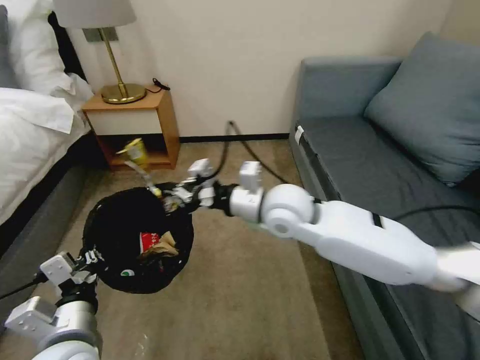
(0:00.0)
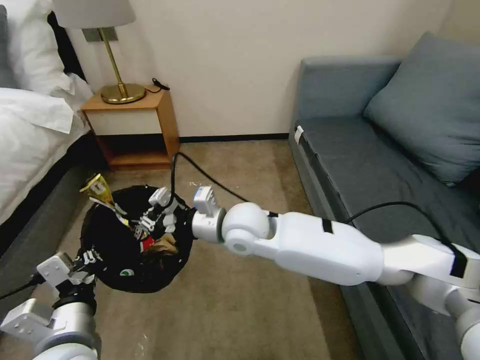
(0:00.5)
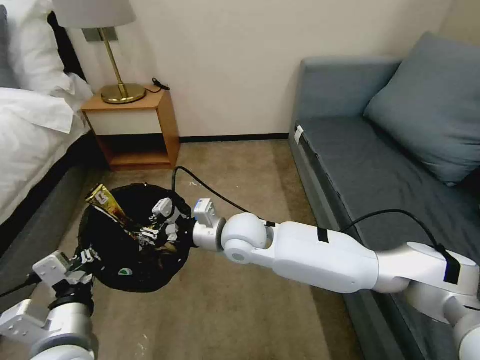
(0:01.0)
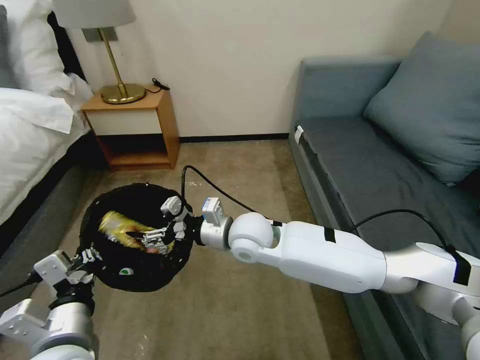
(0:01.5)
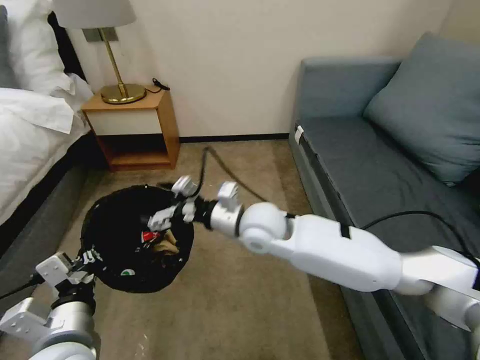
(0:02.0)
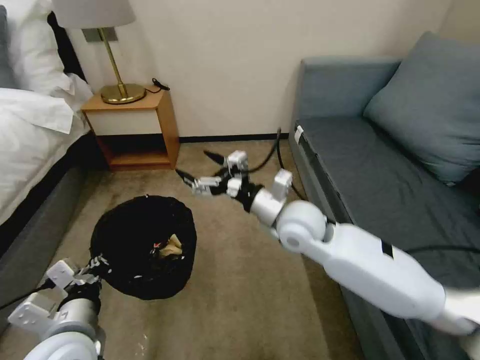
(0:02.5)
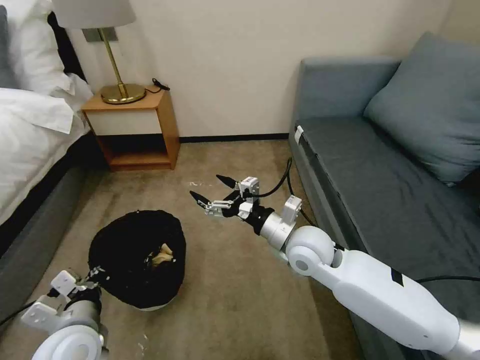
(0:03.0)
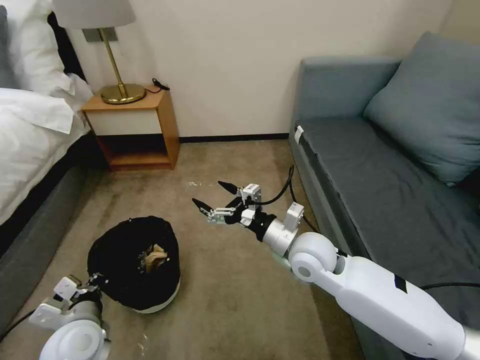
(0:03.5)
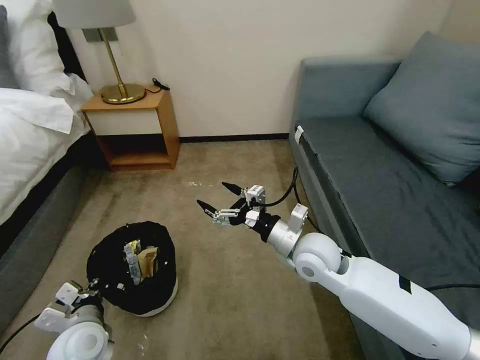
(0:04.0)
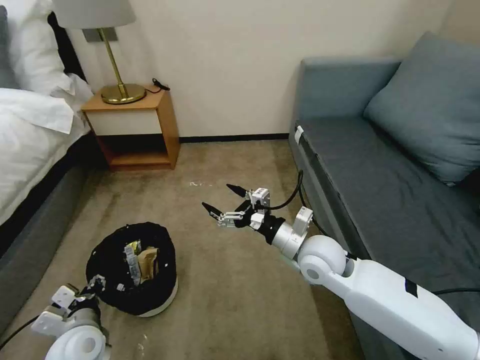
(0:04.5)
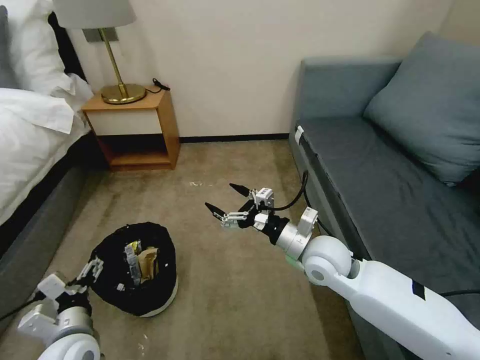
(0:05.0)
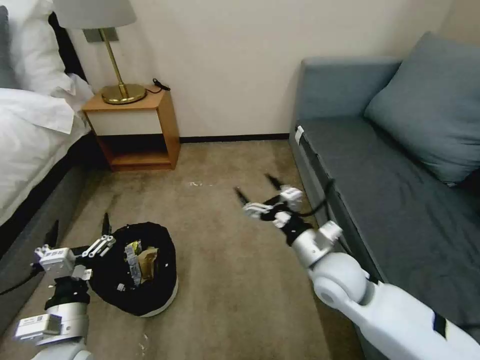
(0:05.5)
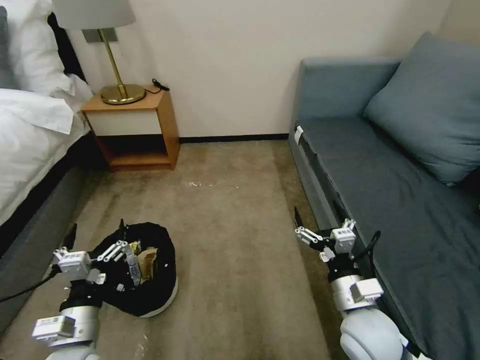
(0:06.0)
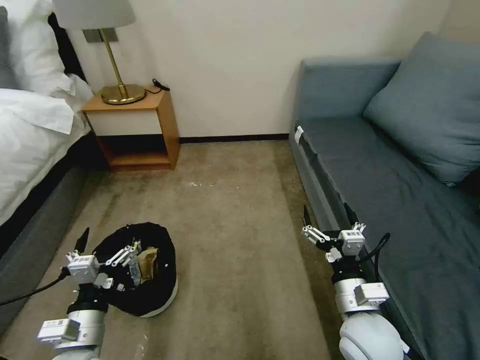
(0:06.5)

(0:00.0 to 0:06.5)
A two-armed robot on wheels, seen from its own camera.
Task of the whole recording: Pick up the trash bin, then pick up the garbage on the floor and place it into the trash bin.
0:00.0 - 0:02.0: The right gripper travels downward by roughly 5 cm, and opens.
0:02.0 - 0:04.5: The right gripper shifts about 15 cm to the right and downward; the left gripper travels downward and to the left by roughly 15 cm, and opens up.
0:04.5 - 0:06.5: The right gripper travels backward and to the right by roughly 15 cm. The left gripper changes place by some 5 cm, and opens.

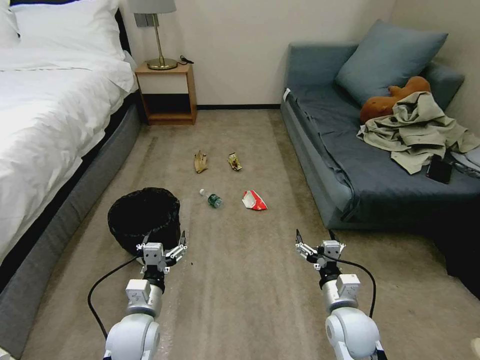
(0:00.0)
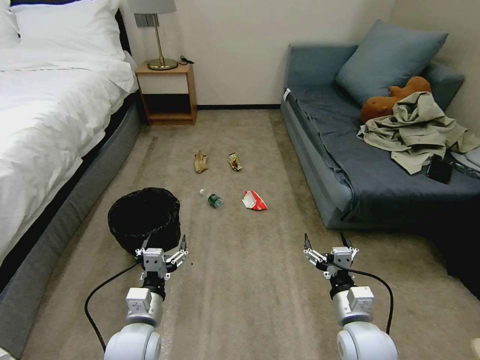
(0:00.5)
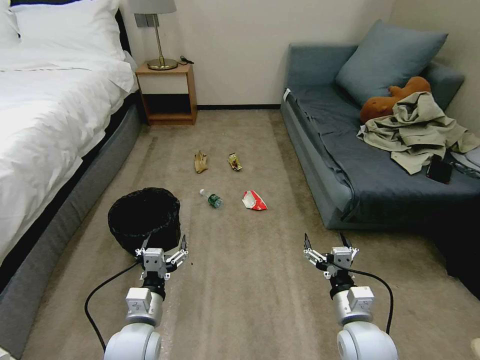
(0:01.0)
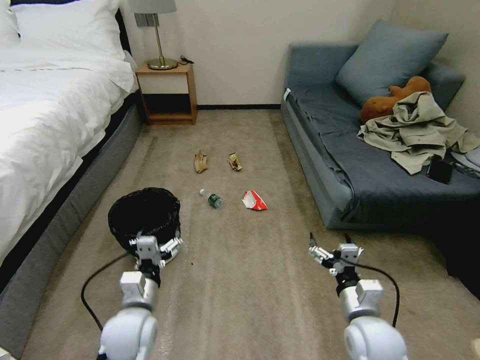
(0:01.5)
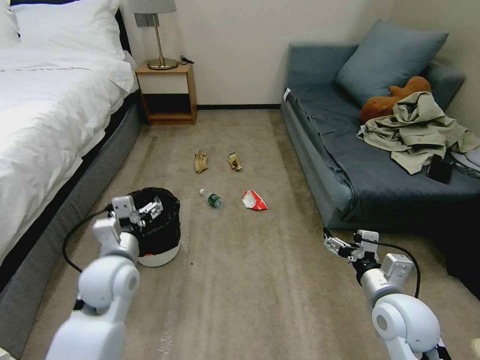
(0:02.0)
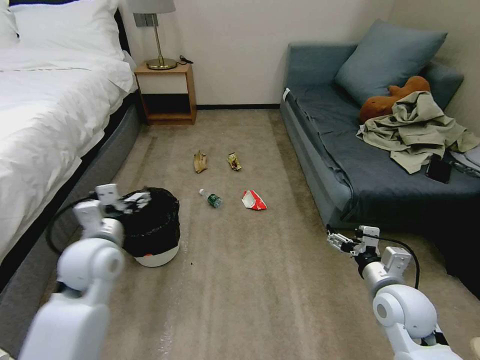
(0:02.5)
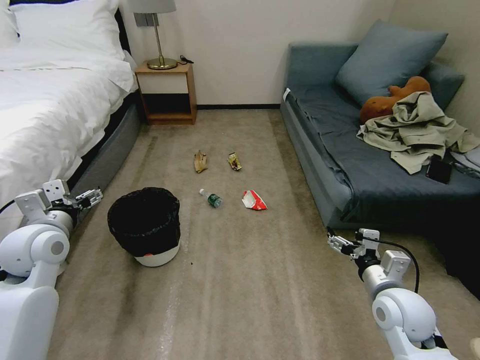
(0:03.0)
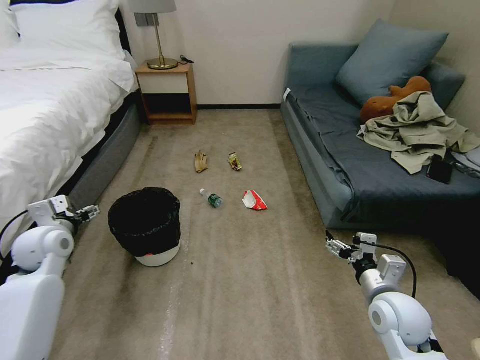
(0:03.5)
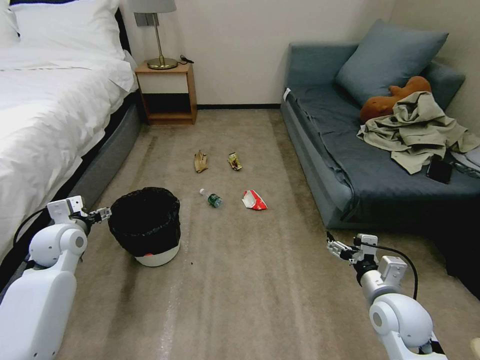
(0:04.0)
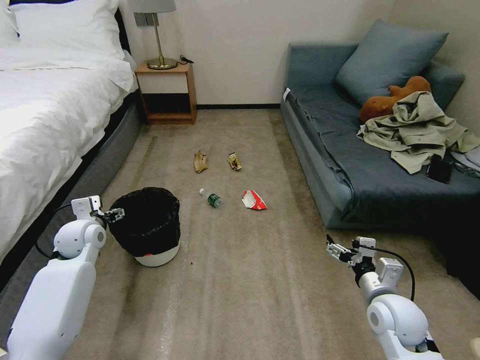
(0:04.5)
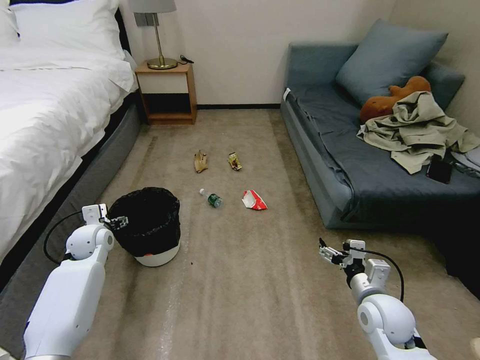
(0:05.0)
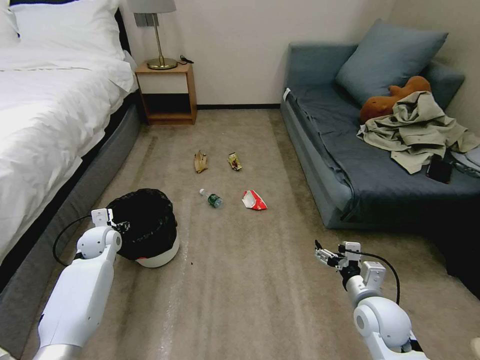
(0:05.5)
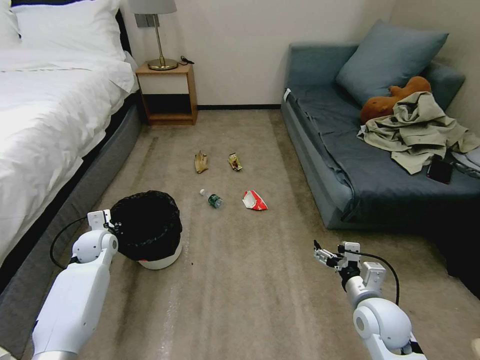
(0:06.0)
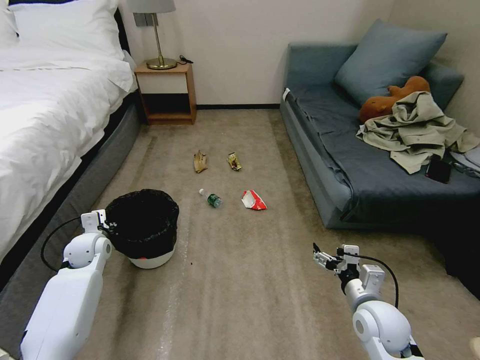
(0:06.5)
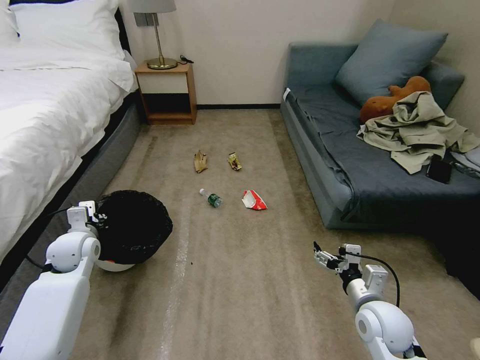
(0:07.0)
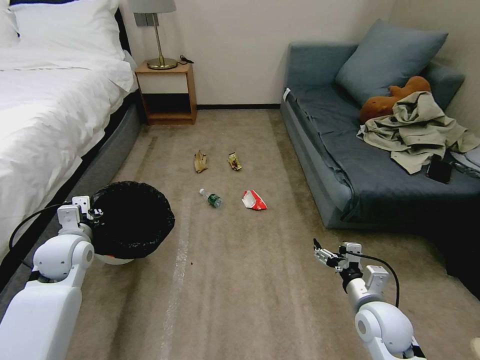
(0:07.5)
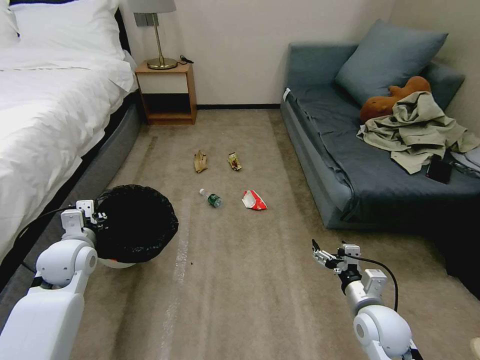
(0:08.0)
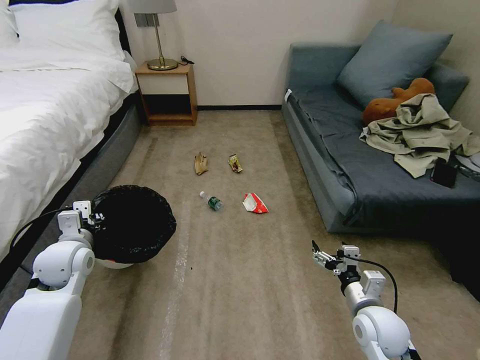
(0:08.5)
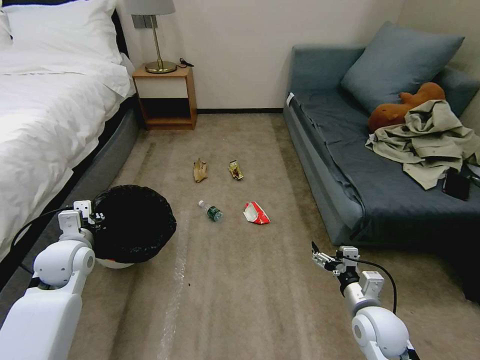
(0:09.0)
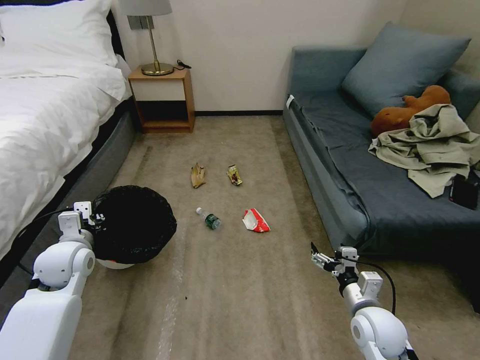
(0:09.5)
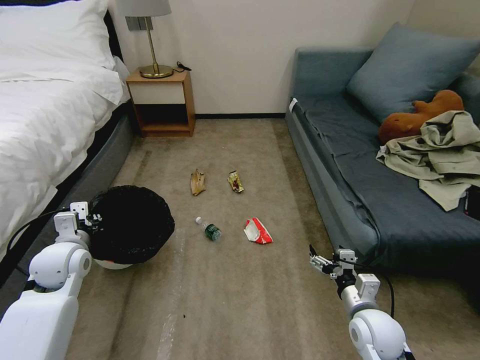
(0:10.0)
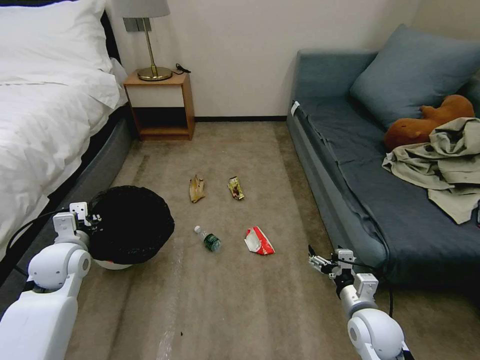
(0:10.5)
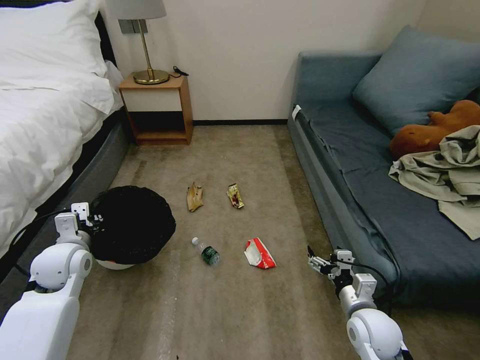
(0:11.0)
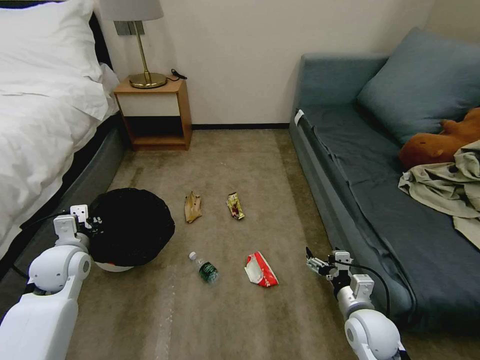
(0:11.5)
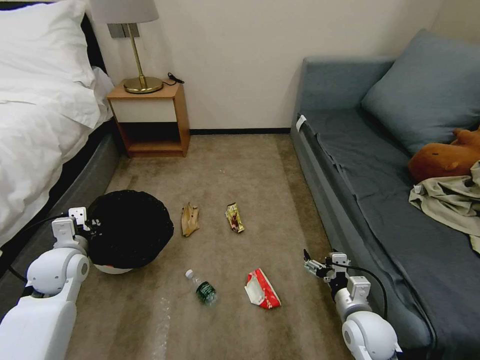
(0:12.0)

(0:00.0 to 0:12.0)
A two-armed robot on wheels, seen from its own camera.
Task of the whole recording: Pick up the trash bin, then pick up the garbage on the floor and place it into the trash bin.
0:02.0 - 0:04.0: The left gripper shifts roughly 15 cm to the left and forward.
0:04.0 - 0:06.0: The left gripper goes about 10 cm downward and forward, and closes its fingers.
0:06.0 - 0:08.0: The left gripper travels upward and backward by roughly 15 cm.

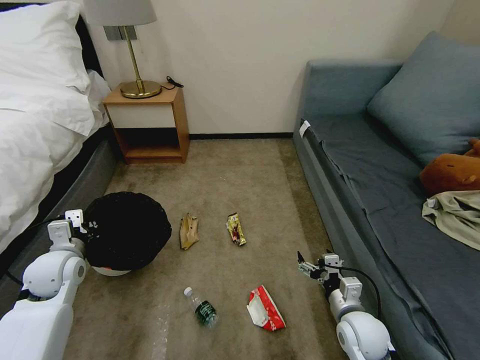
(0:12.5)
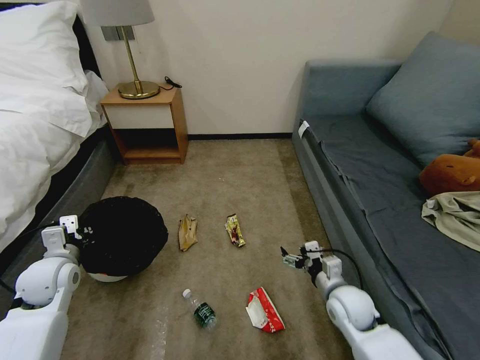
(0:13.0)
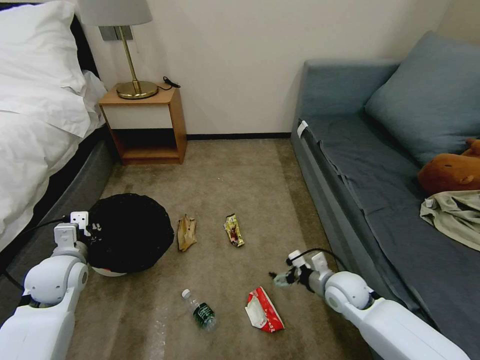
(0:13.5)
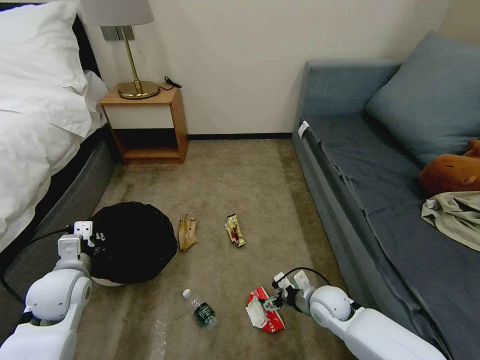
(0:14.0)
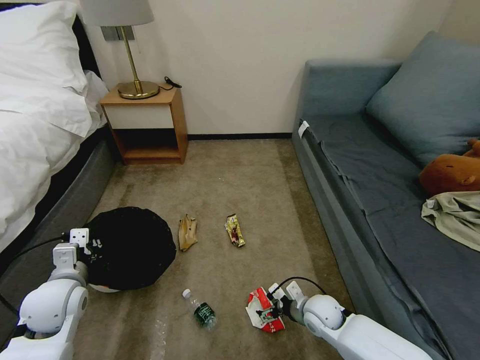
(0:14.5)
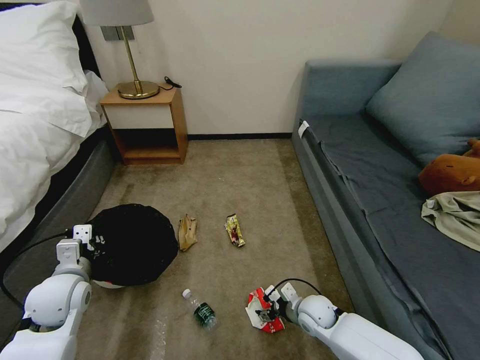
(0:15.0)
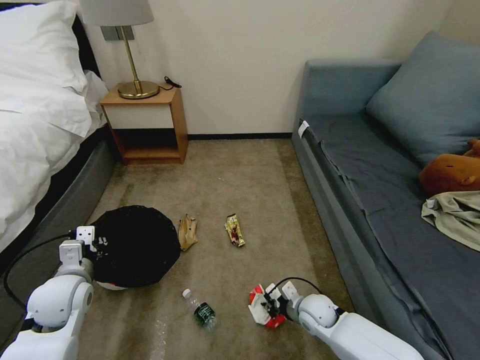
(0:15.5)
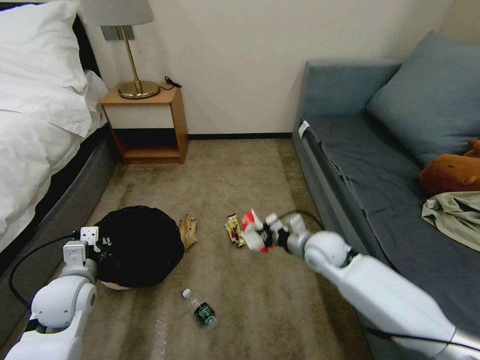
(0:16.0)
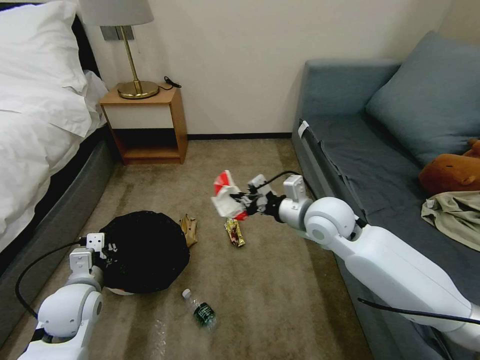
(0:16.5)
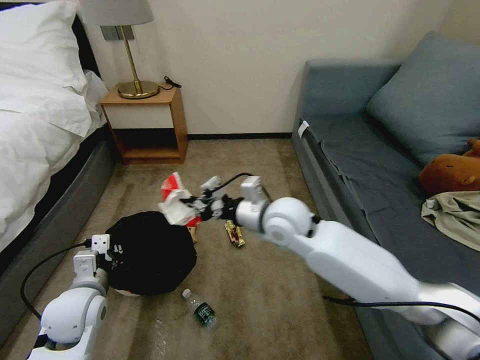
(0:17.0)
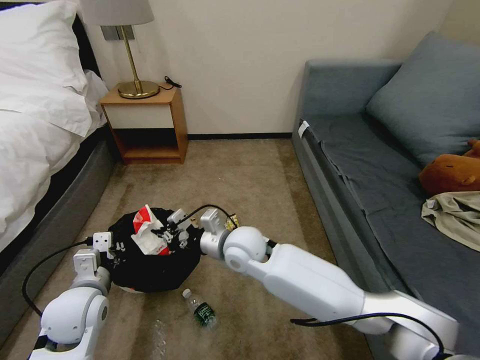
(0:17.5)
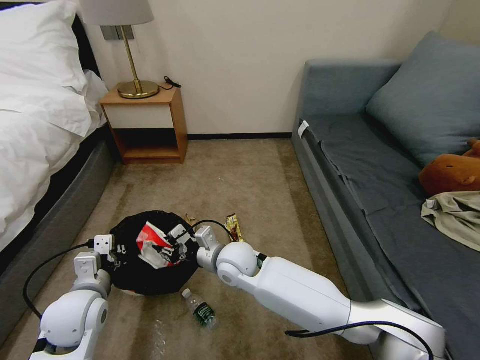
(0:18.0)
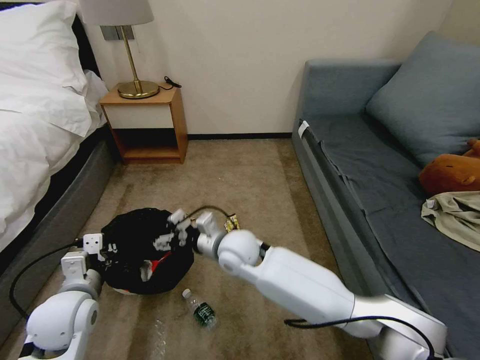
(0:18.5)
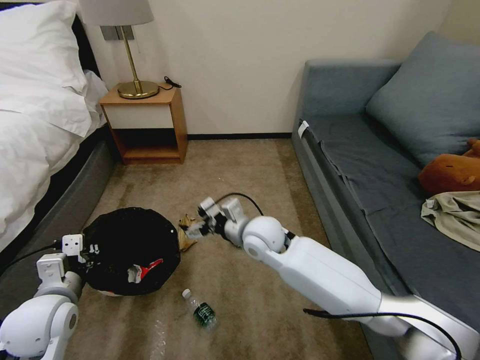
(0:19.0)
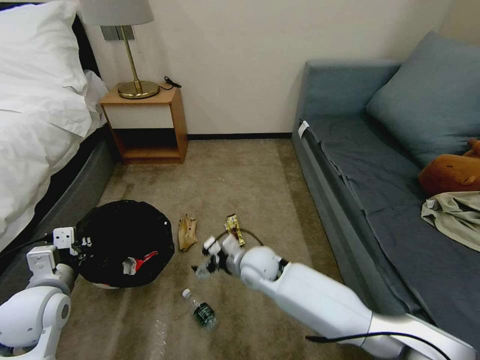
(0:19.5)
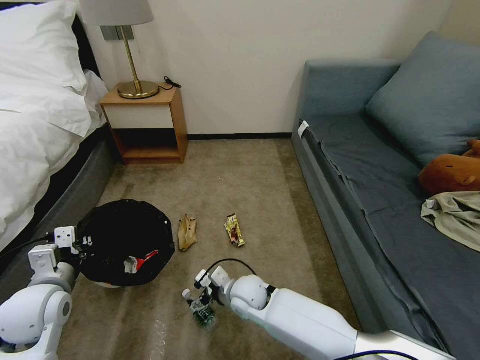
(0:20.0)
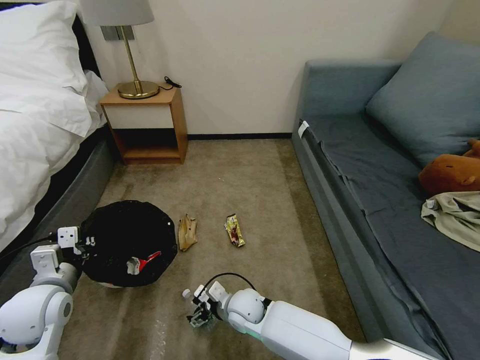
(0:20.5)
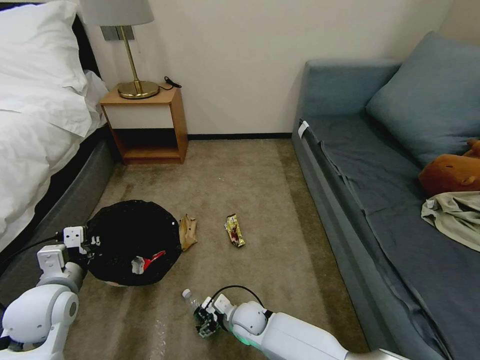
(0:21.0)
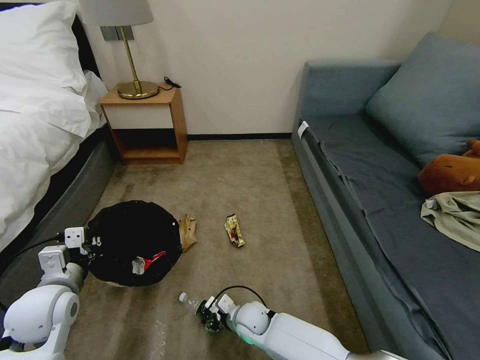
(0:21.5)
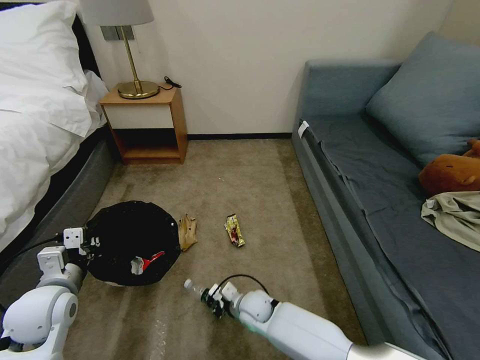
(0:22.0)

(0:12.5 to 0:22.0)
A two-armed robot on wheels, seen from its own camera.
Task of the whole recording: Pick up the trash bin, then pick up the garbage on the floor and place it into the trash bin.
0:12.5 - 0:14.5: The left gripper moves backward, about 5 cm. The right gripper shifts some 10 cm downward and forward.
0:14.5 - 0:16.5: The right gripper heads upward, covering about 25 cm, and closes.
0:16.5 - 0:18.0: The right gripper shifts roughly 25 cm to the left and downward.
0:18.0 - 0:20.0: The right gripper shifts some 10 cm downward, and opens up. The left gripper travels to the left by some 5 cm.
0:20.0 - 0:22.0: The right gripper moves downward, about 10 cm, and closes.
